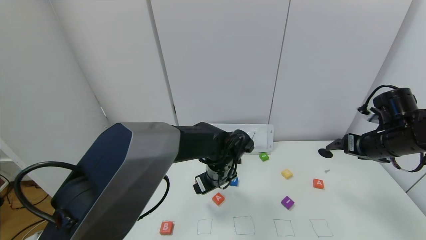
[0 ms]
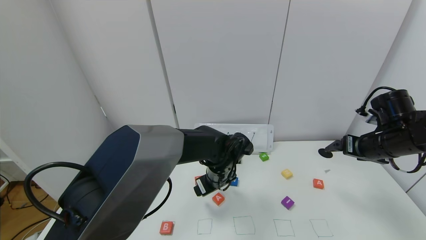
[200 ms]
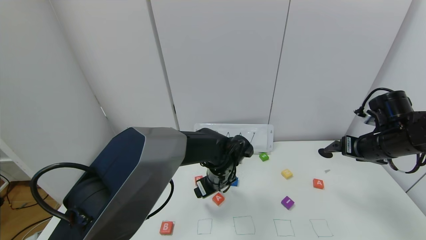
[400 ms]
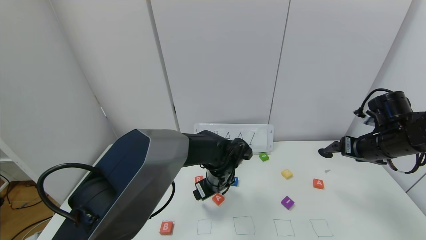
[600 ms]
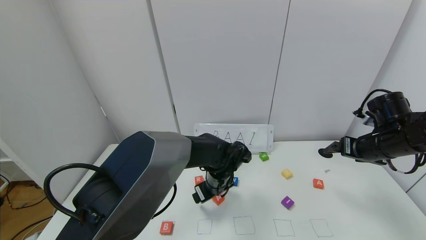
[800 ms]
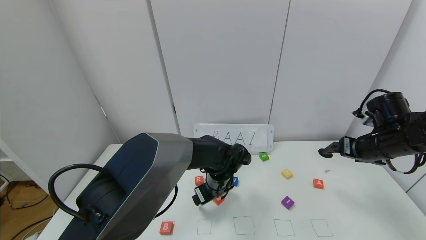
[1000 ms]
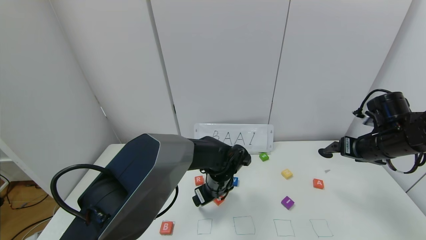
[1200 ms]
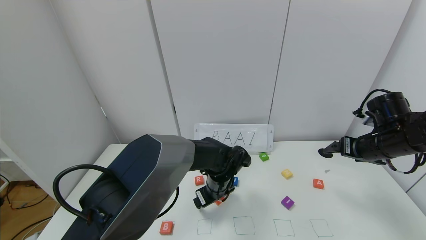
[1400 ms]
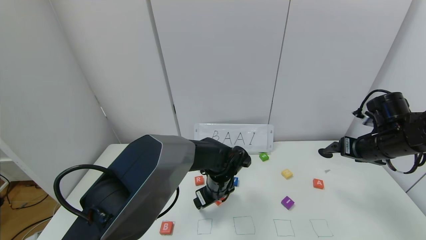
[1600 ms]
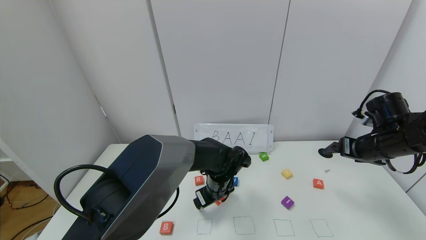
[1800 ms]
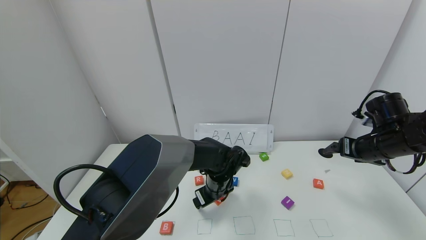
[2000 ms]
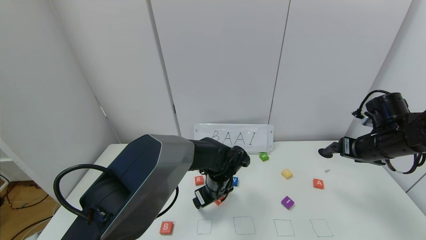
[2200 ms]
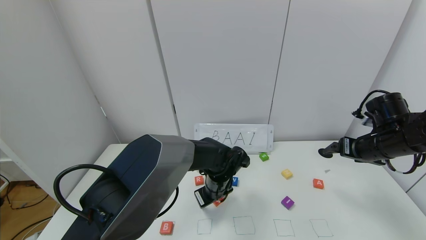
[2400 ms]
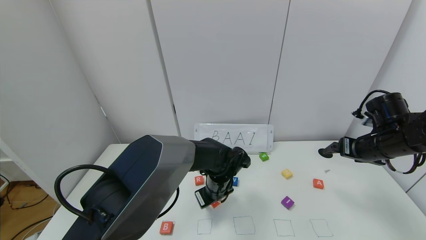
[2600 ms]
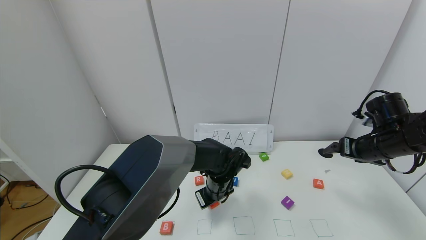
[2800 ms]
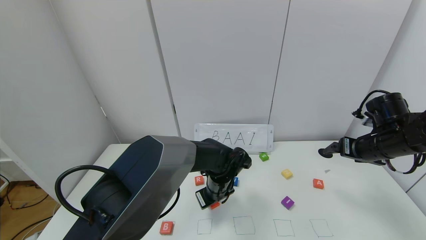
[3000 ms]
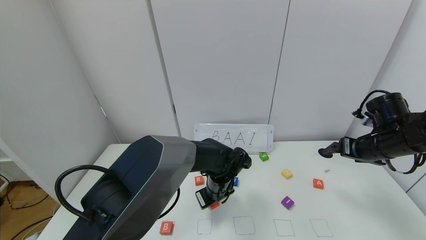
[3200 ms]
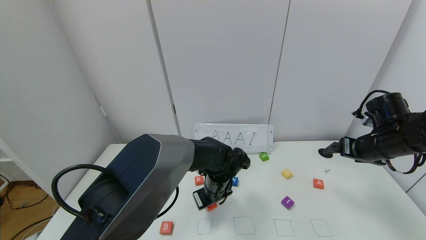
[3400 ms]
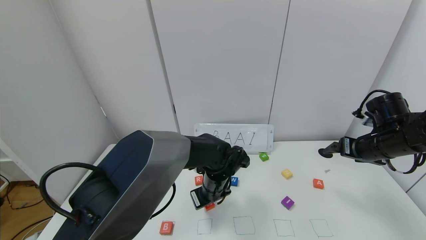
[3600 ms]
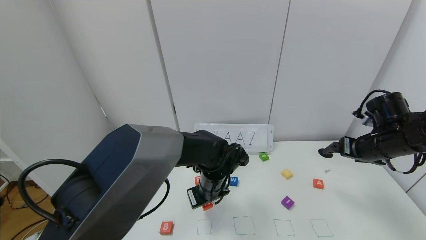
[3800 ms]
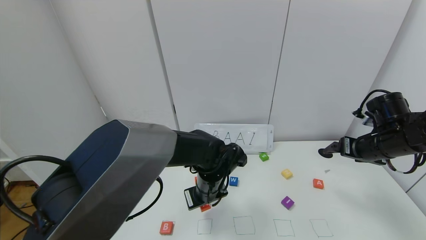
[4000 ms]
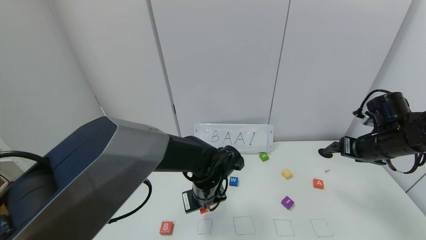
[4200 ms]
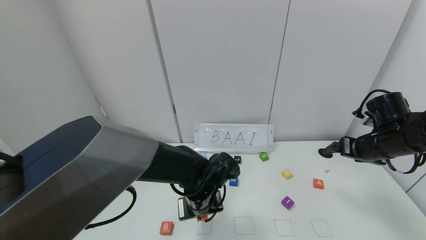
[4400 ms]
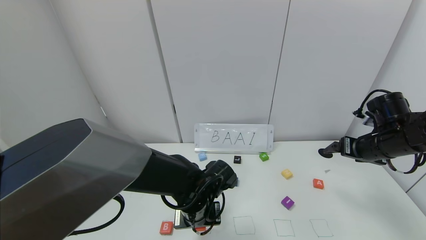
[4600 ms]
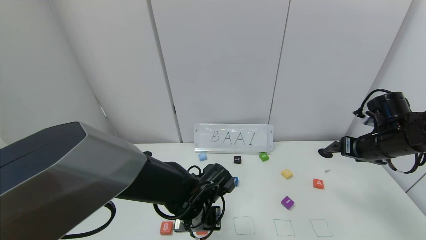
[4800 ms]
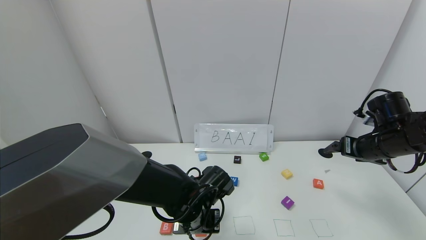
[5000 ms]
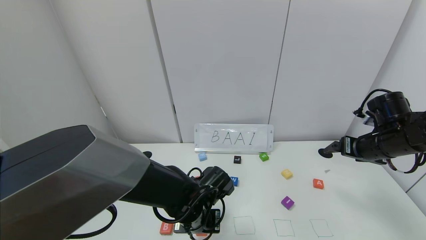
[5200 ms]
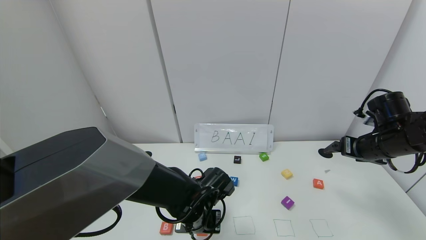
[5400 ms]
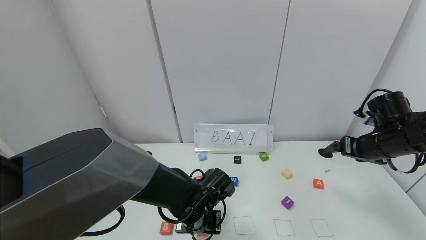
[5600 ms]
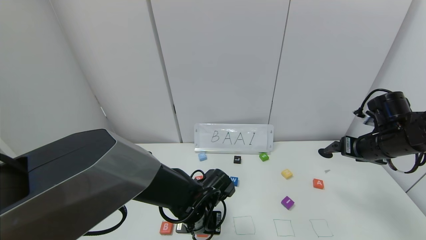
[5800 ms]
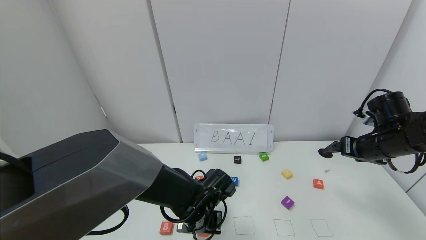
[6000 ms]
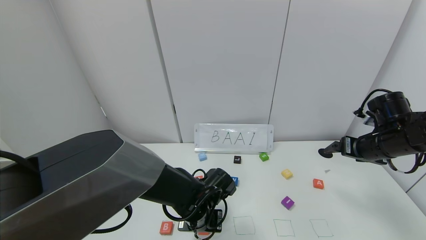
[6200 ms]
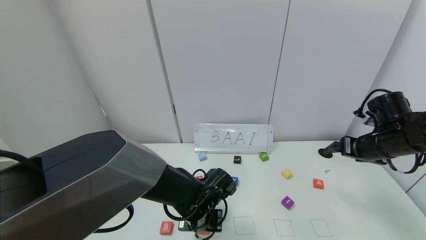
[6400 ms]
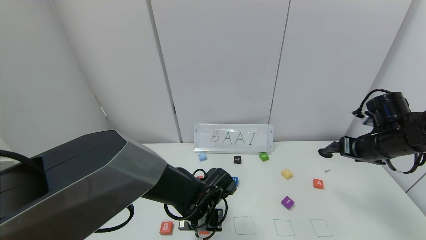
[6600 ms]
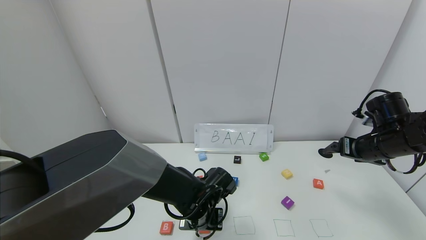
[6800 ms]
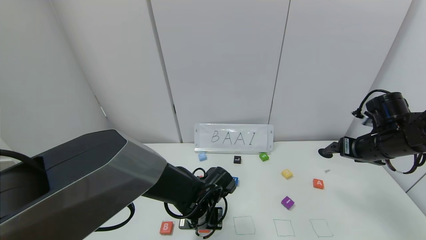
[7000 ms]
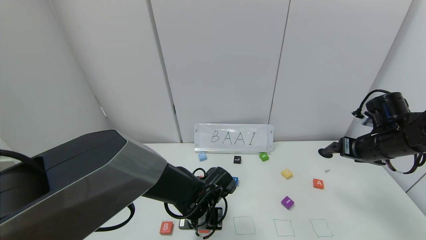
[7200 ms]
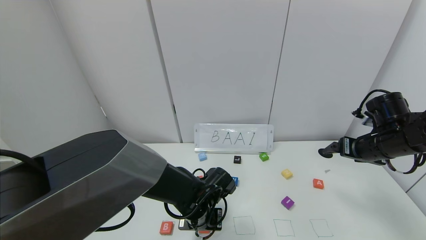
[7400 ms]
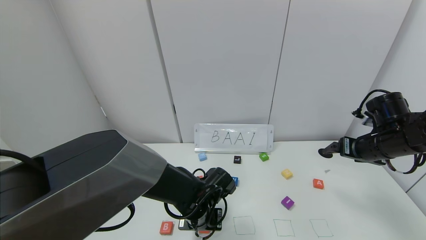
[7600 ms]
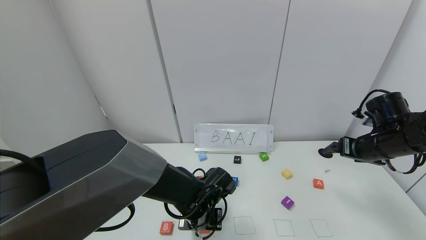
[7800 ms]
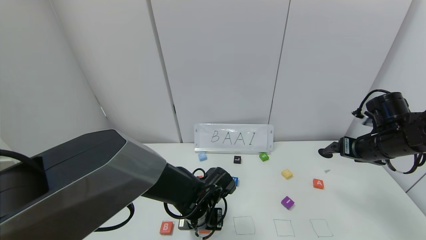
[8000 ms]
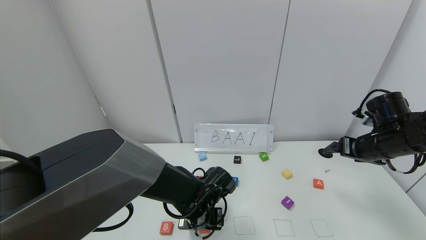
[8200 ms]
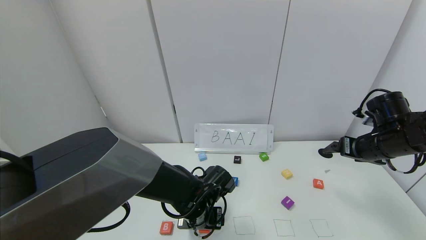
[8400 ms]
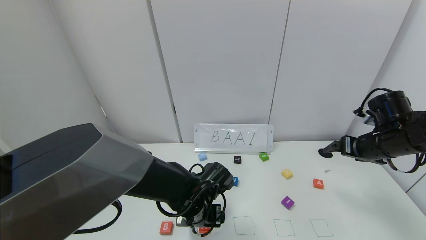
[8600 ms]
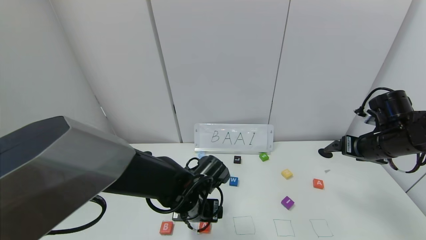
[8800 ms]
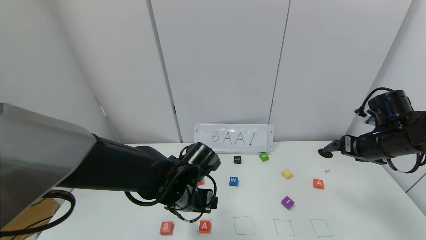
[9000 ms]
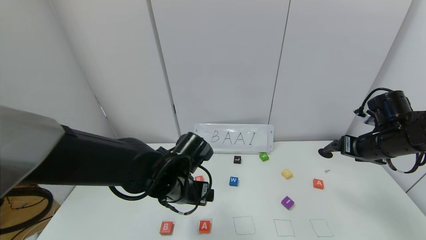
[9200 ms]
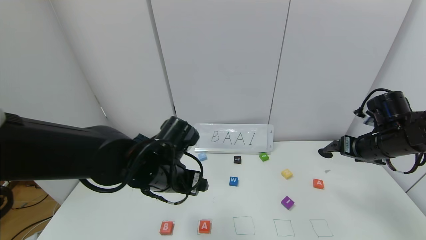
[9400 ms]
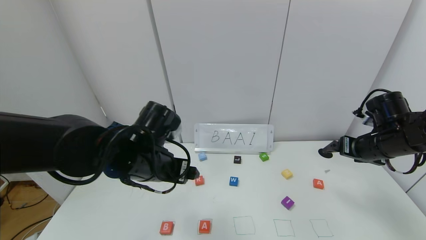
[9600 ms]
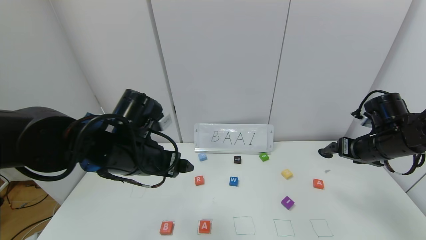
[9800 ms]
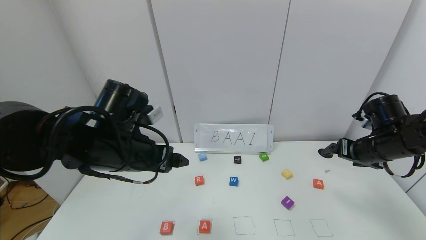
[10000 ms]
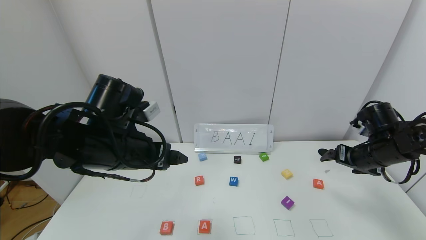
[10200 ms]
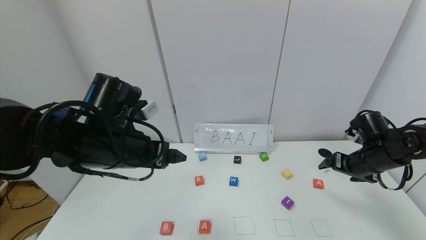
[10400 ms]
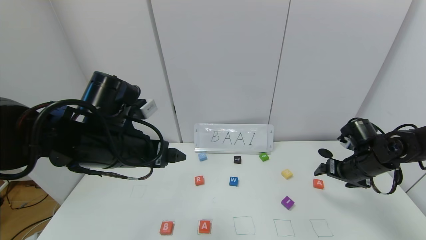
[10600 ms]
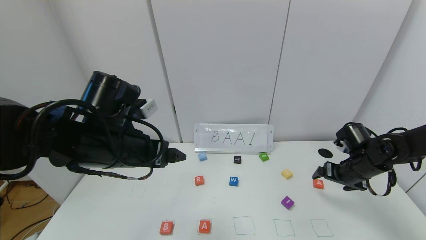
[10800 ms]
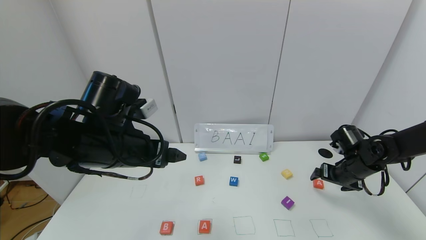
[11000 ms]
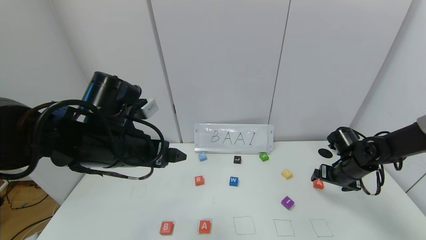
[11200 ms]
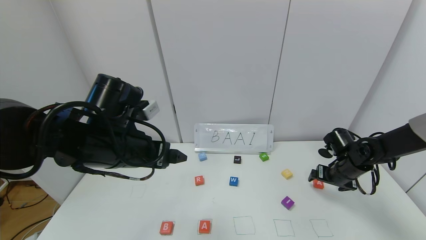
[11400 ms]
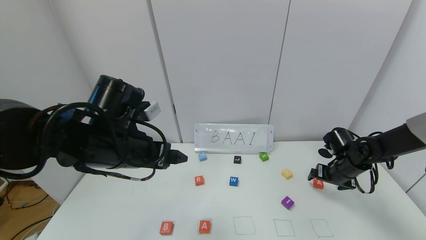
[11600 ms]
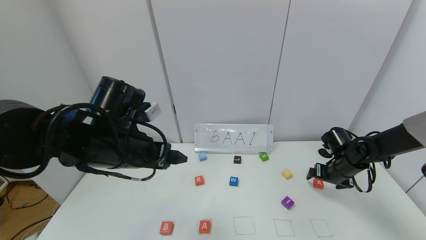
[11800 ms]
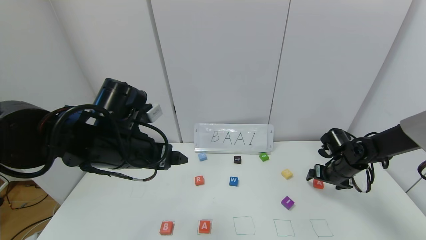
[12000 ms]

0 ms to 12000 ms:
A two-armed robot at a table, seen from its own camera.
Task of the whole recording: use the gripper to find blocks with the letters b, a, a, and i on the table and arrange them into BAAI, then find r and N and turn the arranged baai into brian.
Step, 0 ms to 8200 ms: Place the first block A in the second location.
0 ms to 1600 ms: The left gripper is displaced downward by about 5 cm.
1600 ms to 3000 ms: The left gripper closes its fingers.
3000 ms to 4400 ms: The left gripper is displaced backward by about 5 cm.
4400 ms to 6000 ms: The grippers stay close to where they were, moving slightly.
6000 ms to 7600 ms: The left gripper opens its fingers.
7600 ms to 9000 ms: The left gripper shifts about 5 cm upward, and opens up.
9000 ms to 10400 ms: The left gripper moves upward and to the left, roughly 15 cm. Meanwhile the right gripper shifts some 5 cm downward.
10400 ms to 12000 ms: The right gripper is displaced downward and forward by approximately 10 cm.

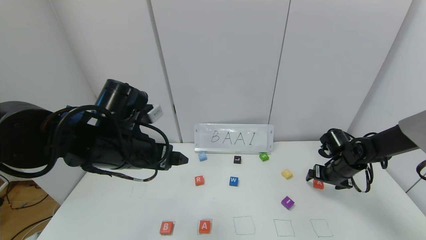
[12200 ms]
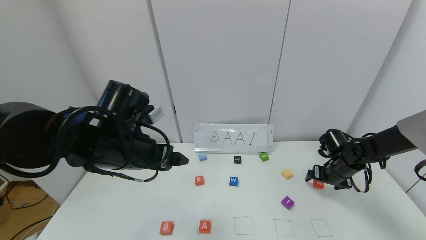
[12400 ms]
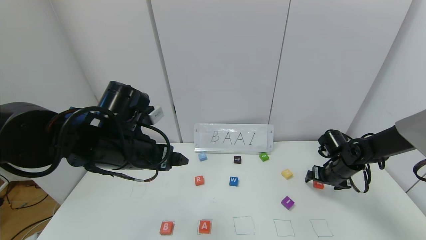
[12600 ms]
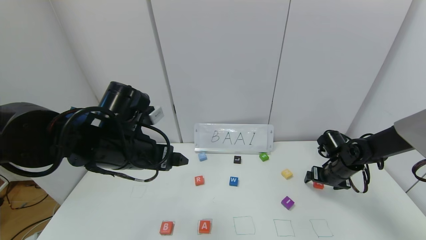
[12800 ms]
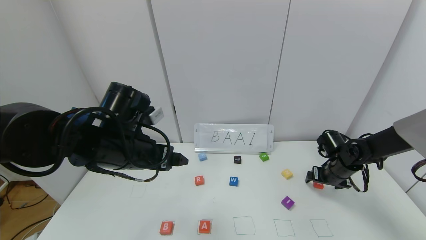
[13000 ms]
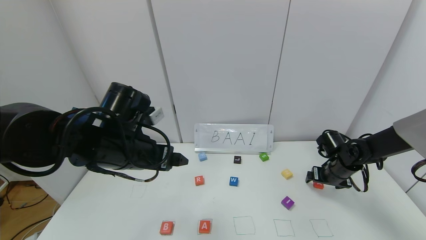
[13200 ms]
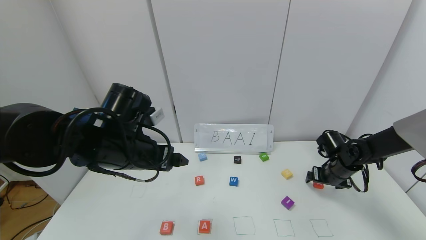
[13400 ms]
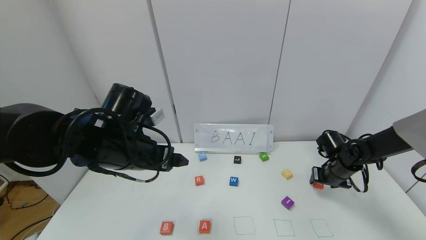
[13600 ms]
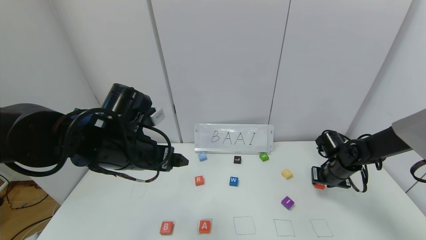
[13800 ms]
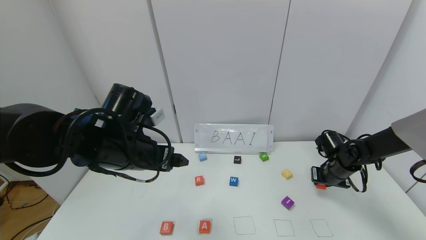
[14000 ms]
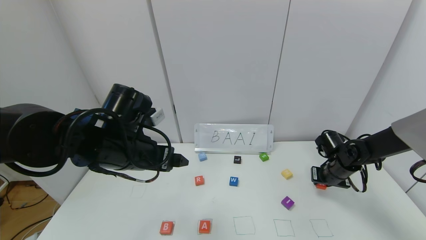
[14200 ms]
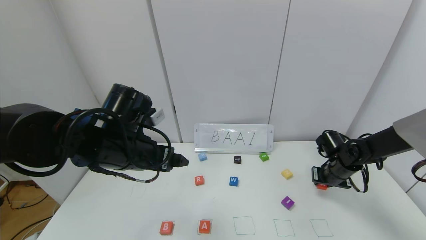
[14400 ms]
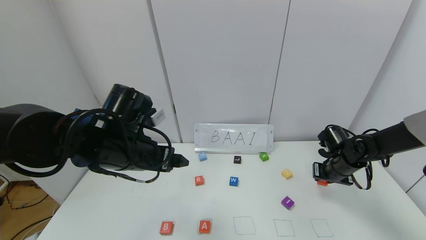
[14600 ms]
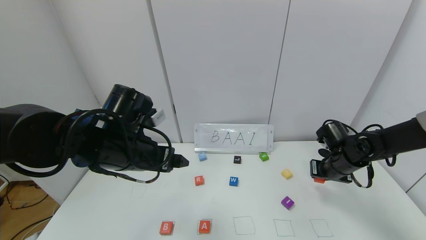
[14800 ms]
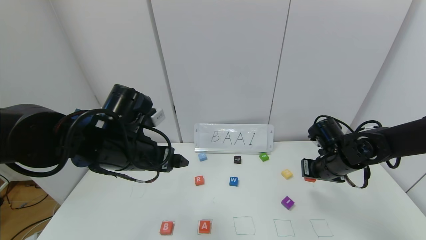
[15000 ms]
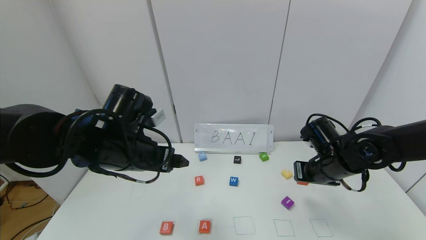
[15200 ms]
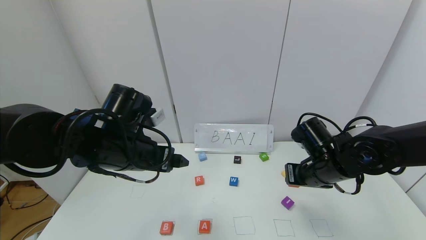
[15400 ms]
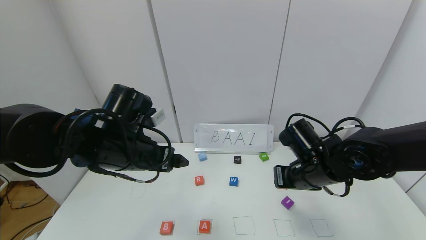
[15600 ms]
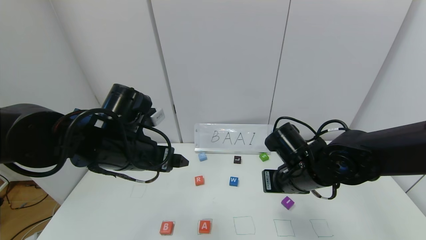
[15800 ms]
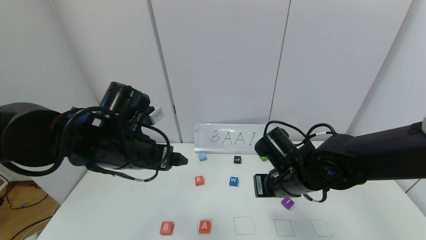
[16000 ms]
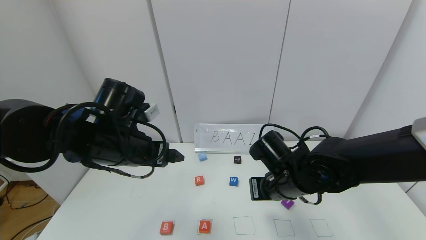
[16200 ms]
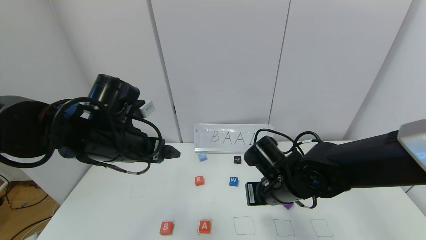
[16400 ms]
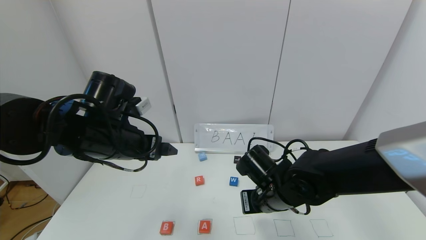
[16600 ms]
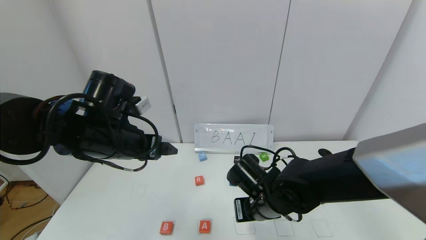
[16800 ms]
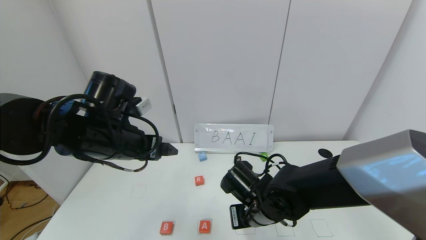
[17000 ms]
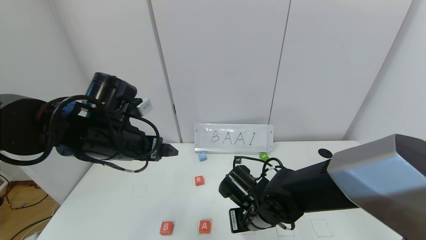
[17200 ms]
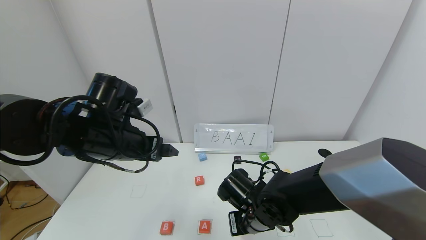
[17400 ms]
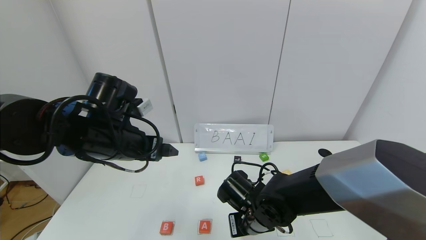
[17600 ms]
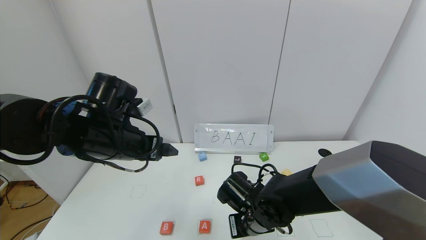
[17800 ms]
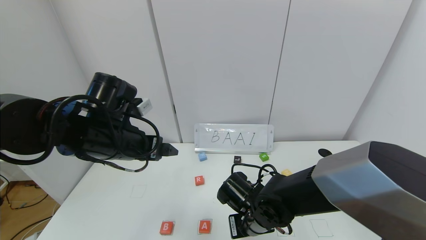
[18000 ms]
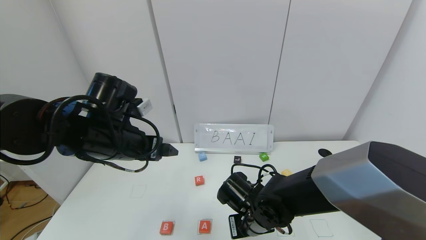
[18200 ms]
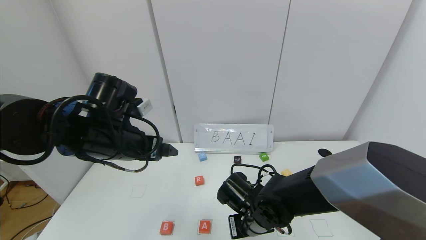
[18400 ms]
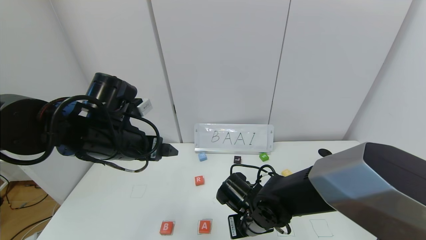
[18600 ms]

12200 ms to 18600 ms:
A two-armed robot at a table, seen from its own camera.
Task of the whole recording: use the gripper to find blocks with the letters b, a, a, and i on the table and arrange them into BAAI, then find r and N and turn the arranged baai into brian.
12200 ms to 13800 ms: The right gripper closes.
13800 ms to 15400 ms: The right gripper goes some 20 cm to the left, upward and backward.
15400 ms to 17000 ms: The right gripper goes about 15 cm to the left and downward.
17000 ms to 18600 ms: There are only small adjustments of the grippers.
